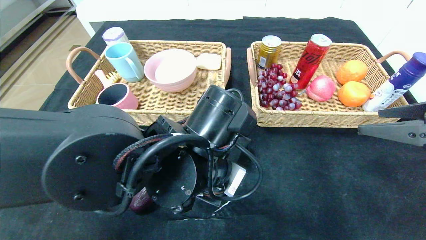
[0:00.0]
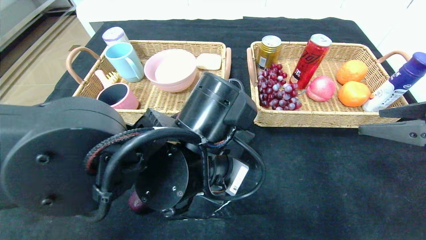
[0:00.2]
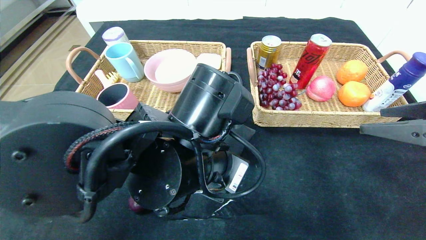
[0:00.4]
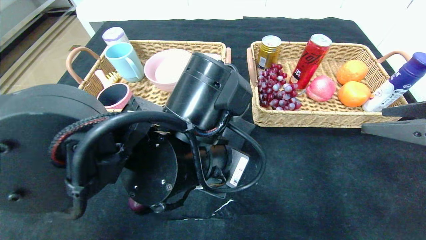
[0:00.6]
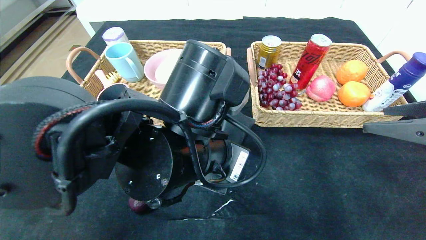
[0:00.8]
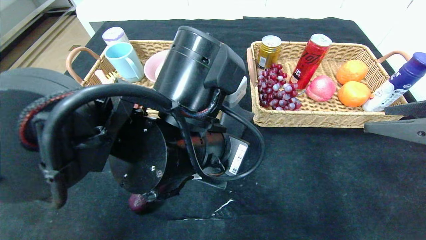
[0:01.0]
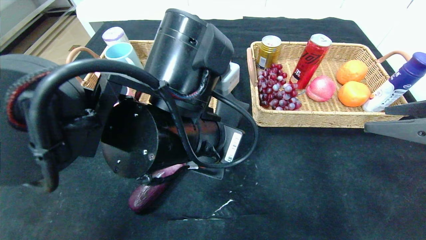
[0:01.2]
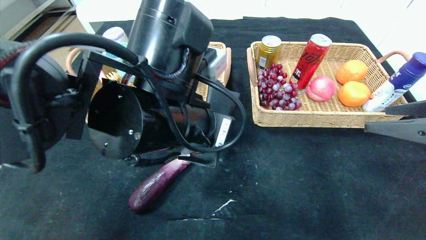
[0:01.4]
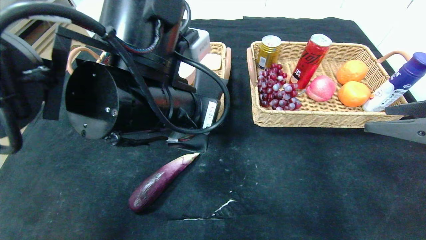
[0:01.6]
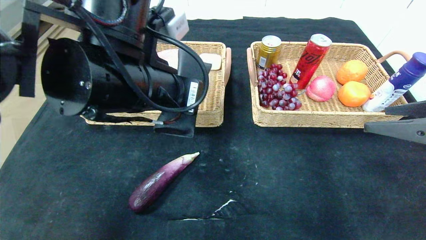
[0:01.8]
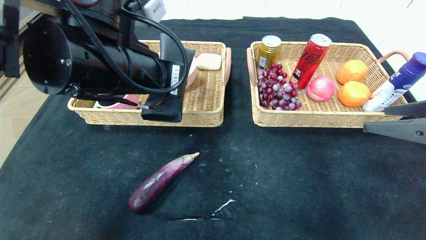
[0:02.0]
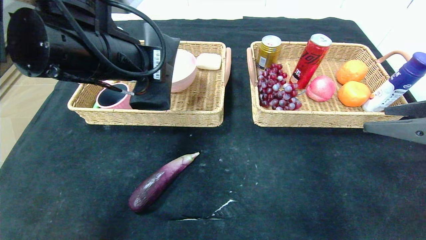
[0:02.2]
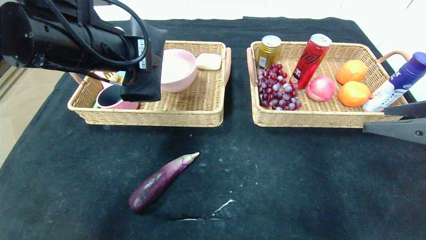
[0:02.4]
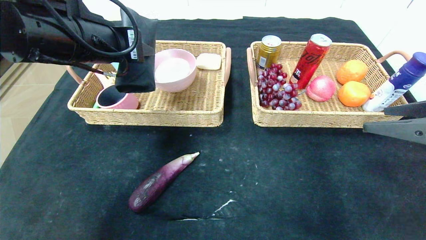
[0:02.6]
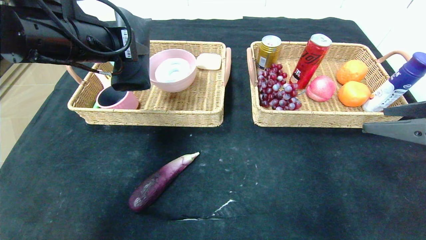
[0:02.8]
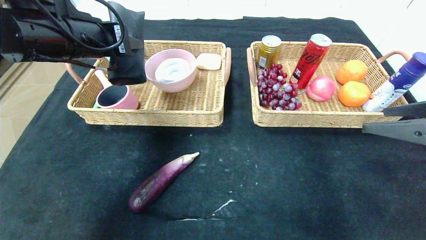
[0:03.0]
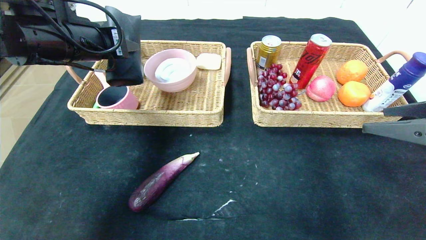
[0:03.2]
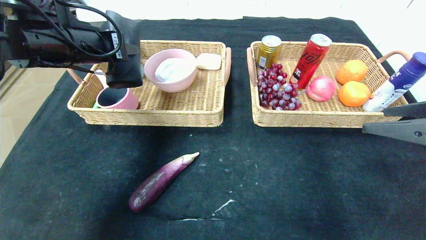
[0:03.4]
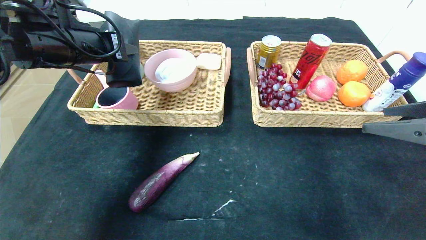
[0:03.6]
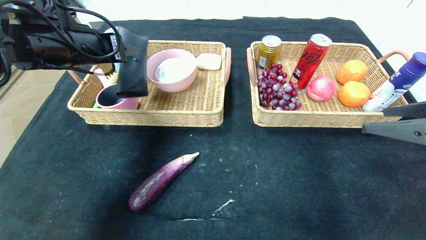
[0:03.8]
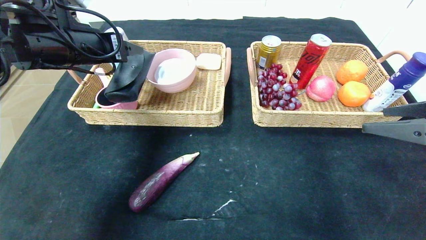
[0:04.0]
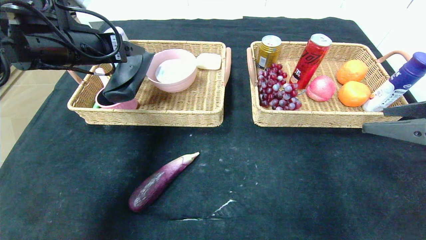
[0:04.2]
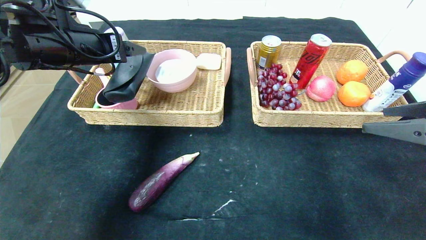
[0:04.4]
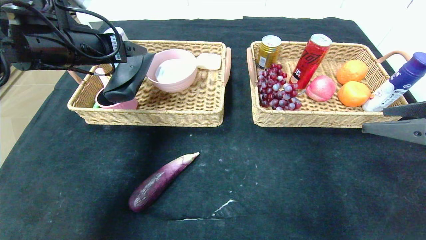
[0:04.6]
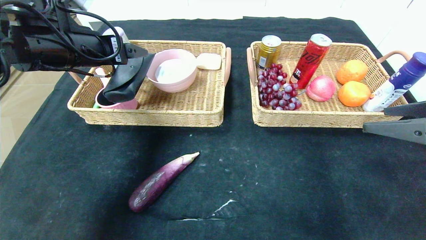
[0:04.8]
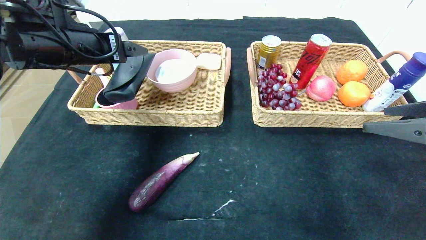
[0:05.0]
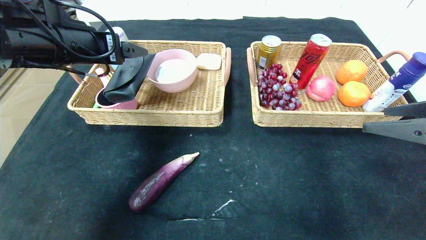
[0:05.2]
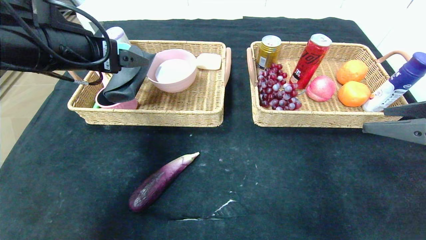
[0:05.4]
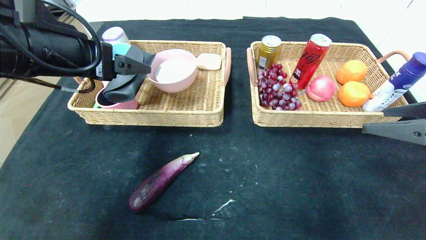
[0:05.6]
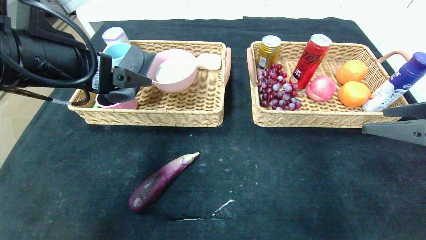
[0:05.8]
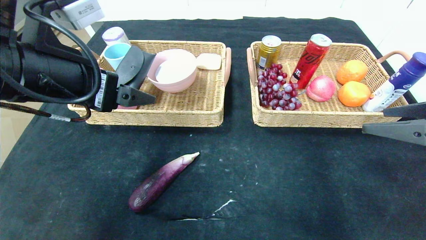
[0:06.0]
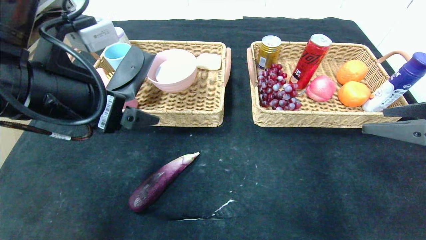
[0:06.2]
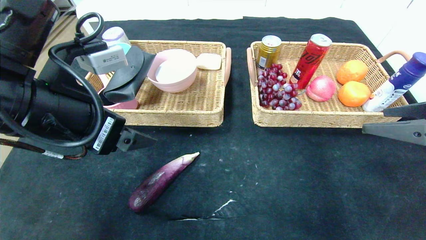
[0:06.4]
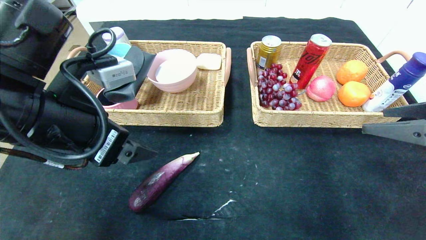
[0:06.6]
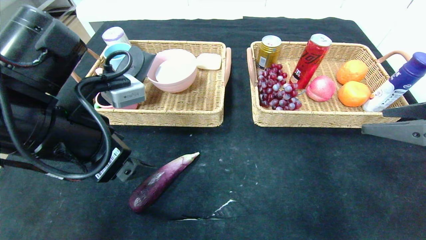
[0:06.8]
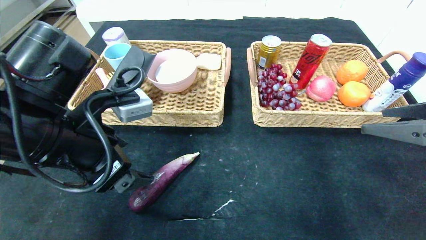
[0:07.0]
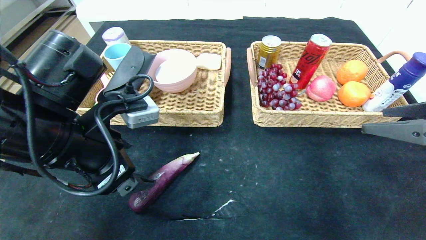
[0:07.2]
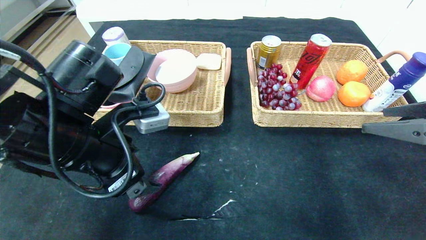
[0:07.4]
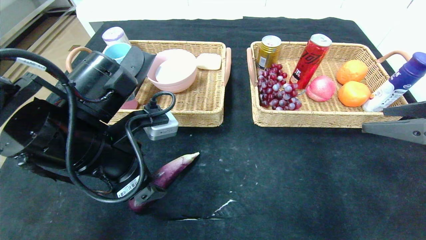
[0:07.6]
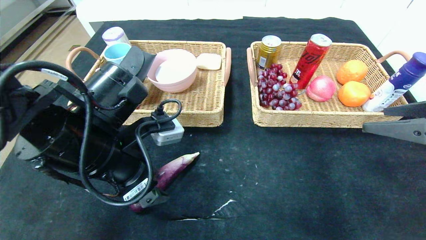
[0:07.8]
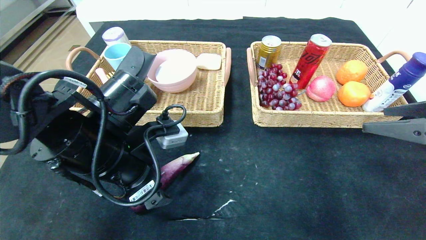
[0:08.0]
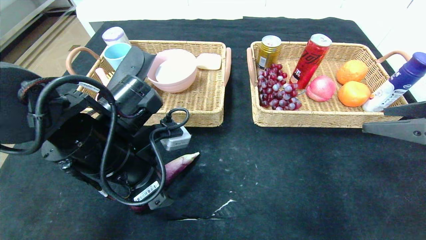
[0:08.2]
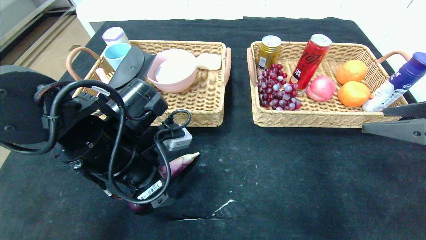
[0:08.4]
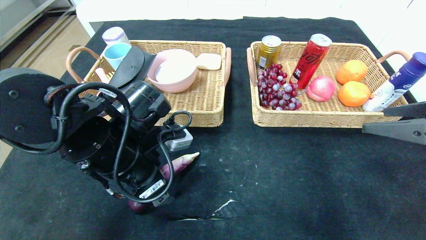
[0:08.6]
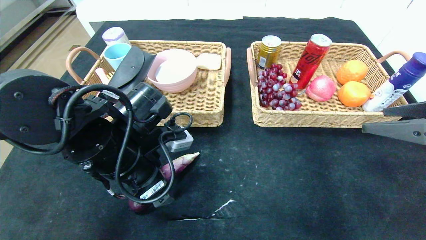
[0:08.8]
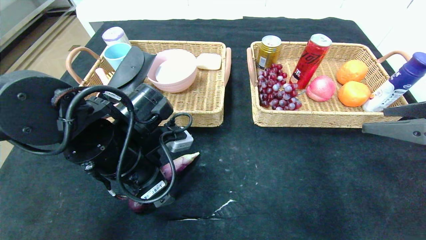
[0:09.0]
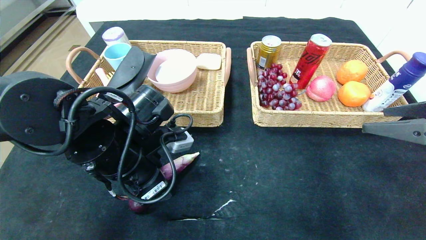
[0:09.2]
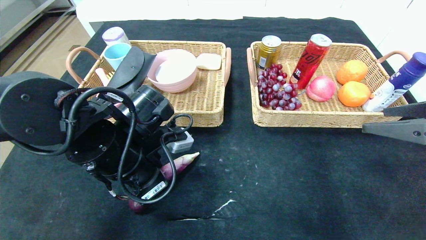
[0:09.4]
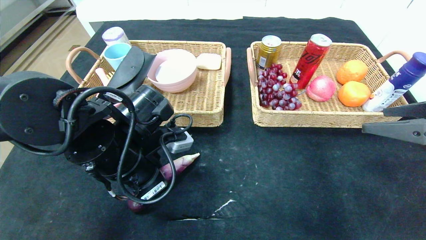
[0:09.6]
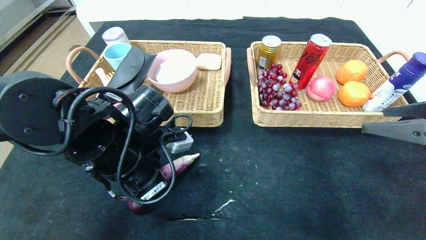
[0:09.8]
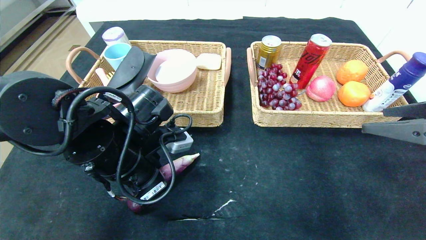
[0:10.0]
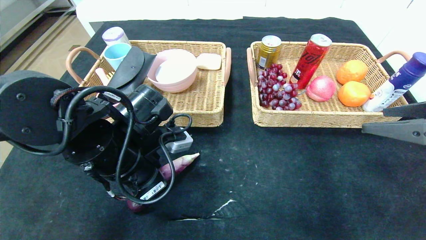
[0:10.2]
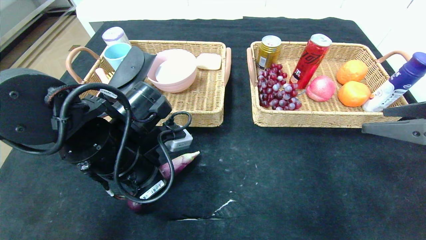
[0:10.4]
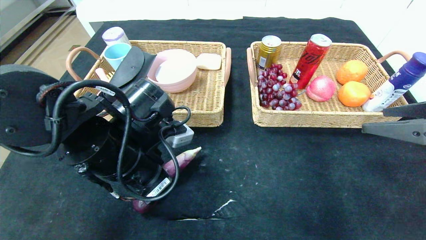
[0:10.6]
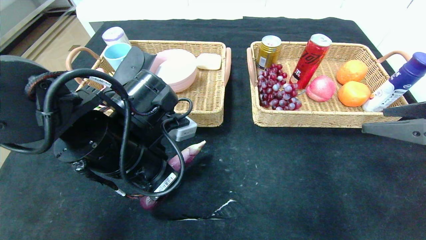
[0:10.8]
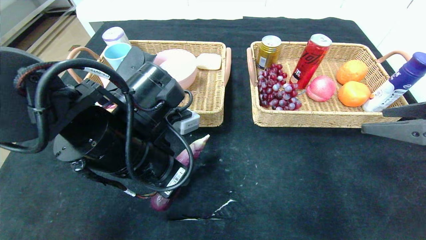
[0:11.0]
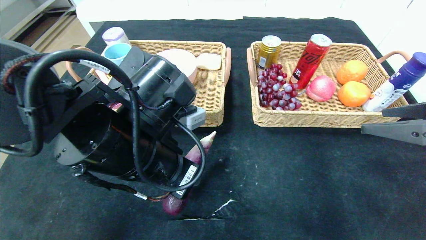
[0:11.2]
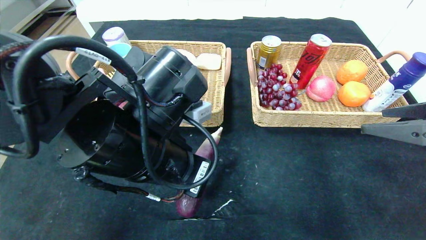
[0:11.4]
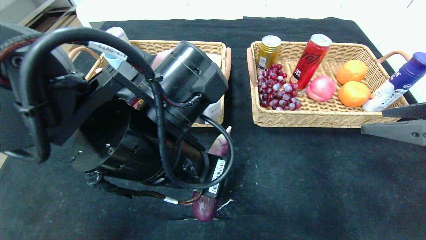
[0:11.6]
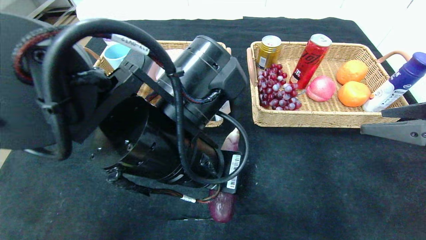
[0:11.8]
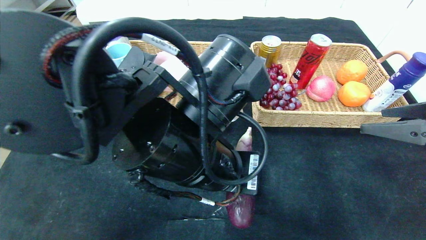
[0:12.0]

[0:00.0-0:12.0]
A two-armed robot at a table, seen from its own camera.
Step, 0:00.0 to 0:04.6: Grasp the glasses case and put it in the left basket.
0:00.0 to 0:01.6: The left gripper goes about 10 cm upward.
0:01.6 to 0:03.0: The left gripper travels to the left, forward and upward by roughly 20 cm.
0:03.0 to 0:04.4: The left gripper opens up.
0:04.4 to 0:06.0: The left gripper moves backward, roughly 10 cm.
0:06.0 to 0:07.6: The left gripper is displaced downward by about 10 cm.
0:07.6 to 0:09.0: There are only small adjustments of the grippers.
0:09.0 to 0:10.4: The left gripper closes its fingers.
0:10.4 to 0:12.0: The left gripper moves to the right, some 10 cm.

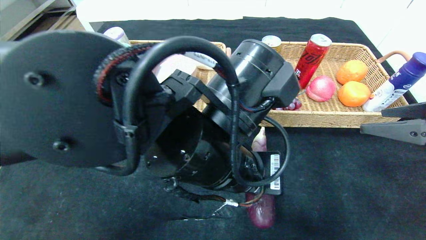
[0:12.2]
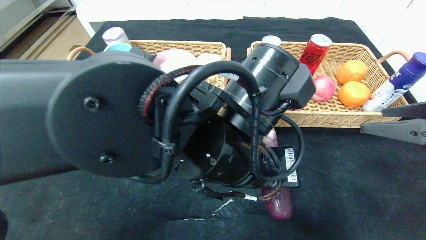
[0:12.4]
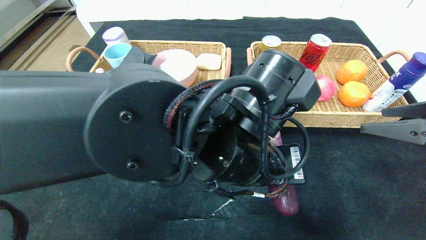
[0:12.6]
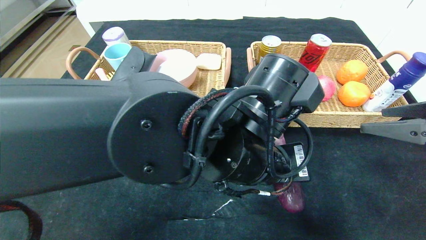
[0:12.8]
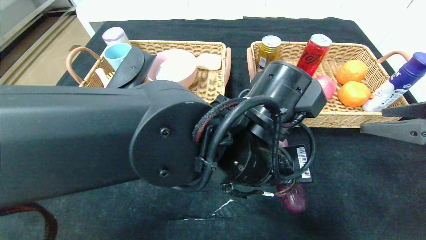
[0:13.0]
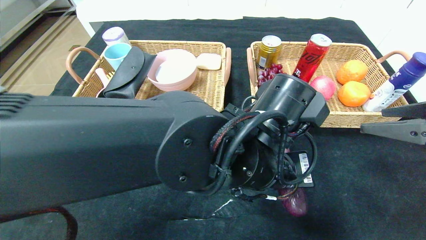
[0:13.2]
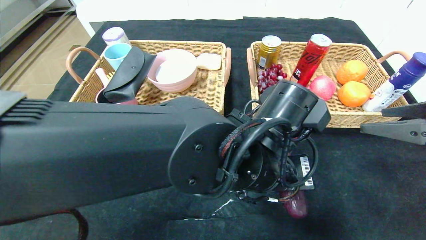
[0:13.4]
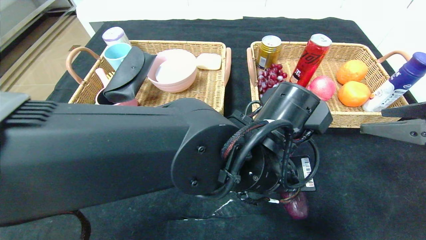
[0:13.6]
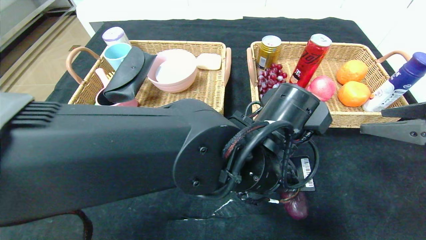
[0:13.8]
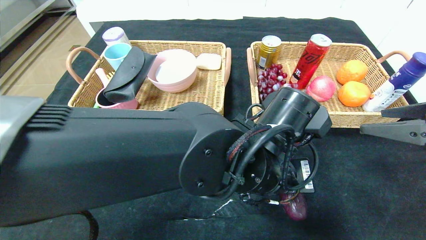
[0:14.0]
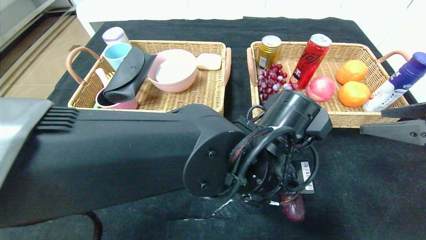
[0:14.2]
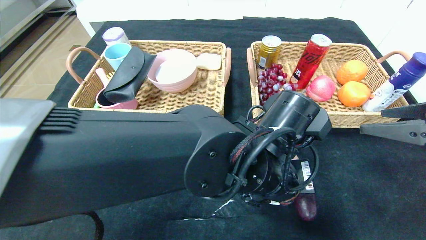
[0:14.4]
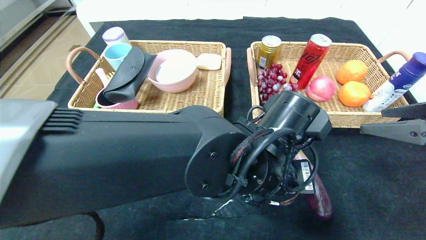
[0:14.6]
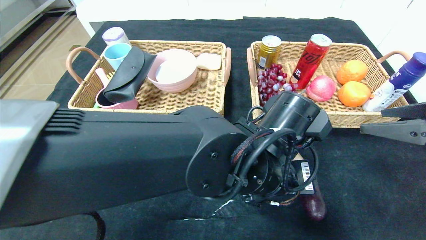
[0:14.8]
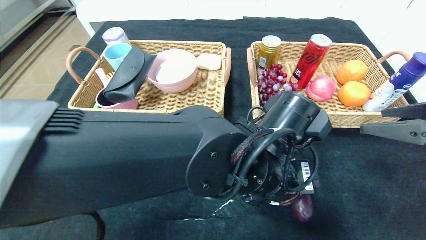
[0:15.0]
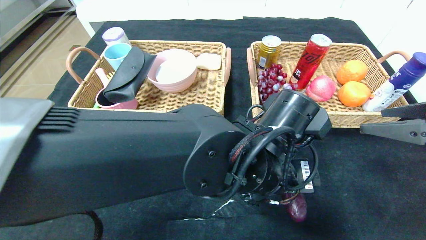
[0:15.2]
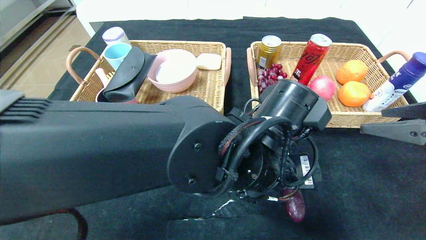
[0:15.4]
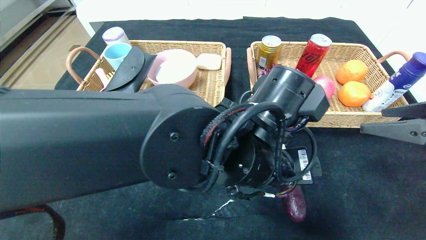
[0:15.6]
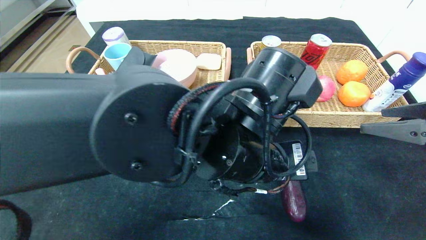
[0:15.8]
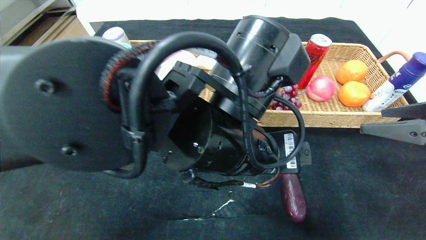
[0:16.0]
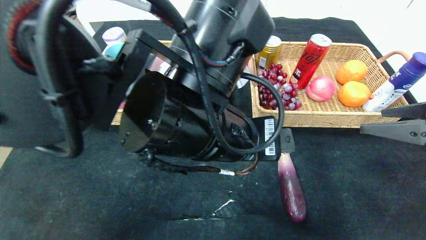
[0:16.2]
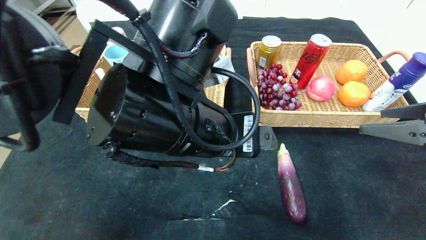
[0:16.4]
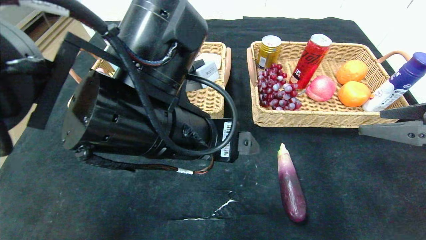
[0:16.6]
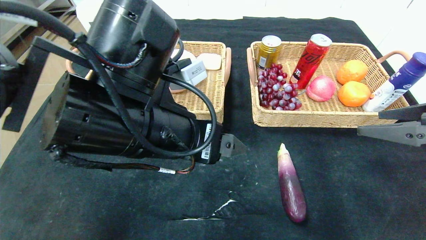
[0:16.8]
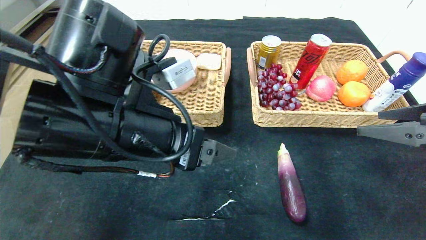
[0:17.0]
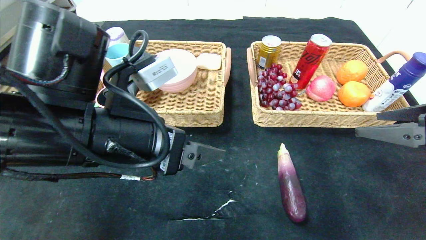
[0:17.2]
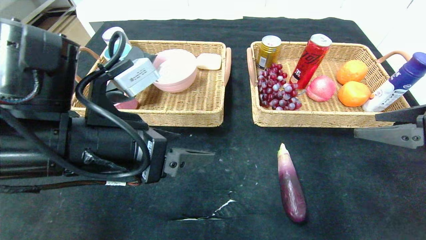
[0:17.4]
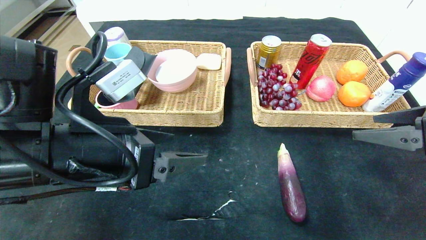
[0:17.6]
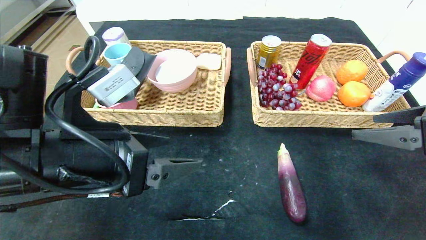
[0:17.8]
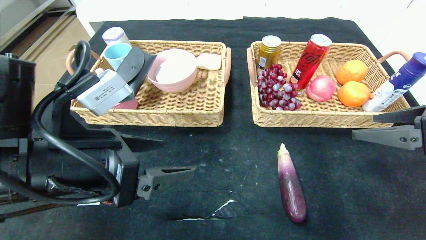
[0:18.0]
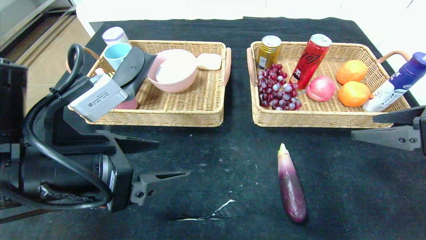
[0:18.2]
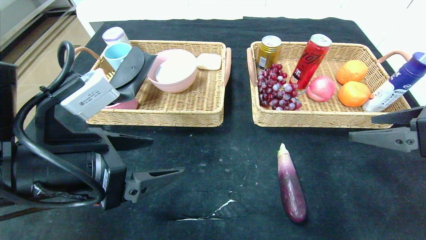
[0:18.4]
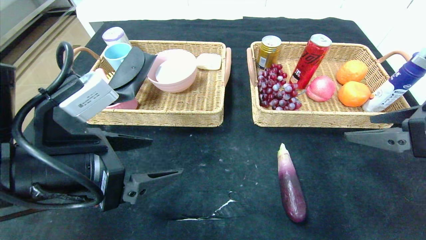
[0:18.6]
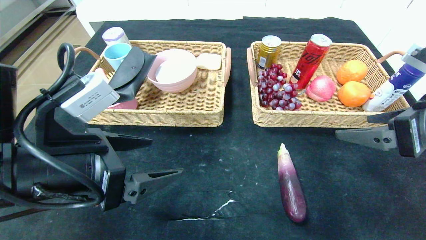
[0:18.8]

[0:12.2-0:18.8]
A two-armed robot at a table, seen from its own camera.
Step, 0:12.2 to 0:15.6: Place the eggplant in the center of the table.
0:12.2 to 0:13.8: The left gripper travels to the right by approximately 5 cm.
0:13.8 to 0:15.4: The left gripper opens up.
0:15.4 to 0:17.2: The left gripper goes roughly 20 cm to the left.
0:17.2 to 0:18.8: The left gripper is displaced to the left by about 5 cm.
